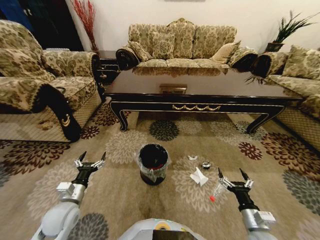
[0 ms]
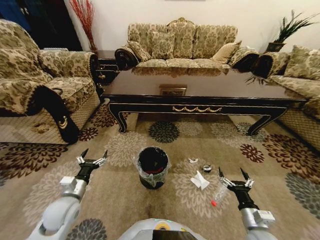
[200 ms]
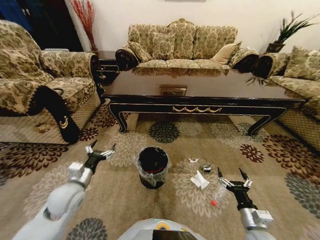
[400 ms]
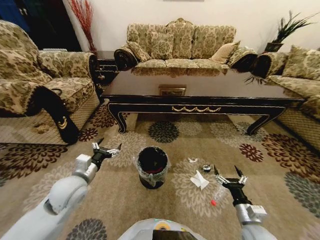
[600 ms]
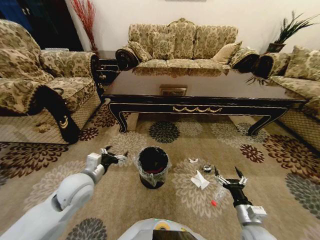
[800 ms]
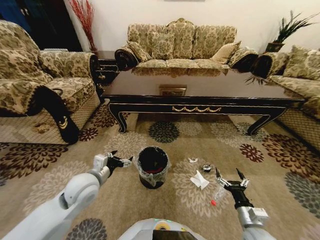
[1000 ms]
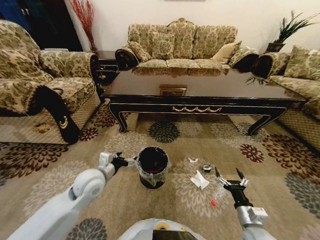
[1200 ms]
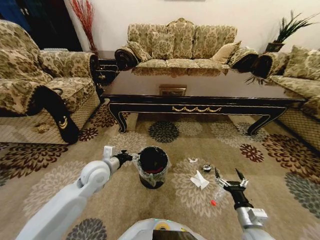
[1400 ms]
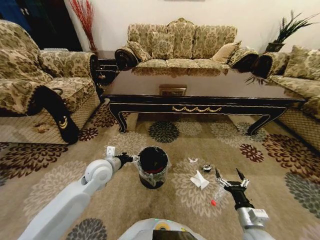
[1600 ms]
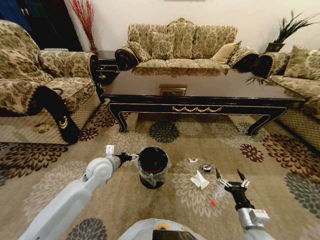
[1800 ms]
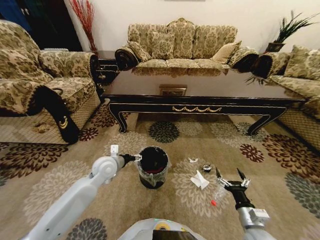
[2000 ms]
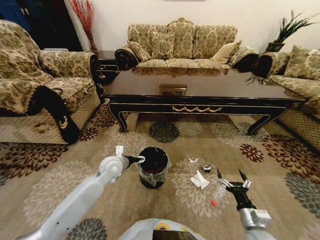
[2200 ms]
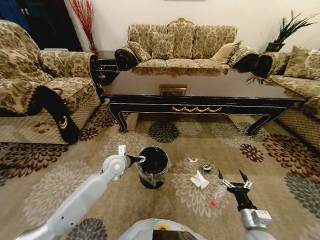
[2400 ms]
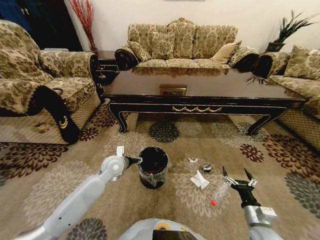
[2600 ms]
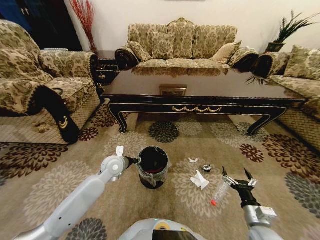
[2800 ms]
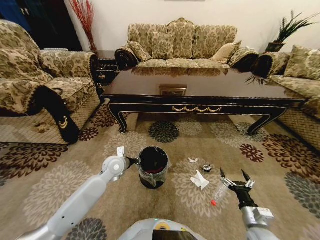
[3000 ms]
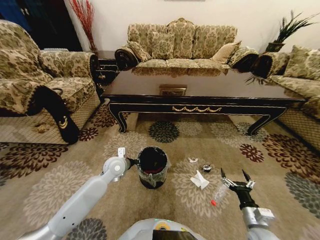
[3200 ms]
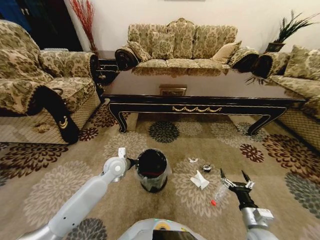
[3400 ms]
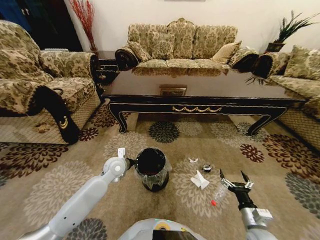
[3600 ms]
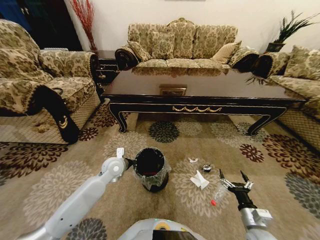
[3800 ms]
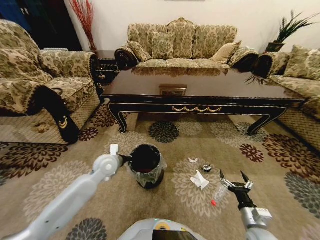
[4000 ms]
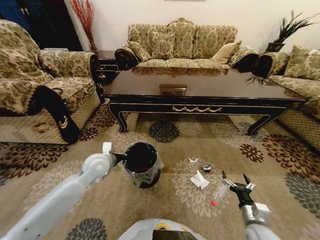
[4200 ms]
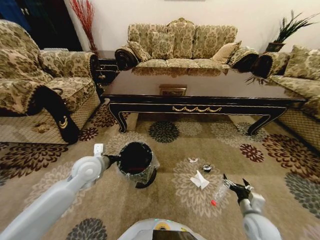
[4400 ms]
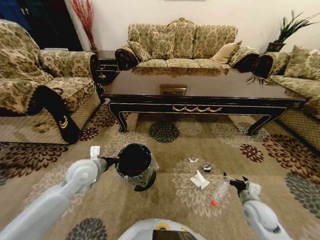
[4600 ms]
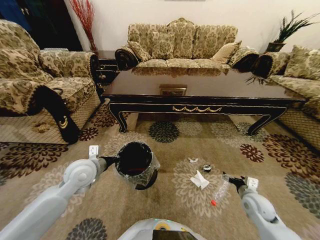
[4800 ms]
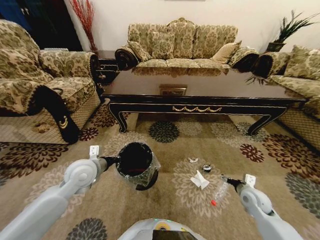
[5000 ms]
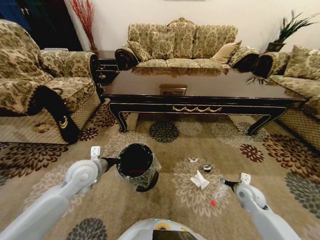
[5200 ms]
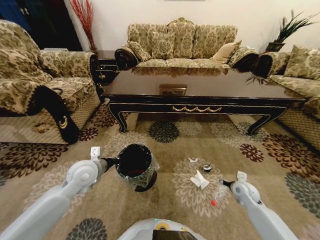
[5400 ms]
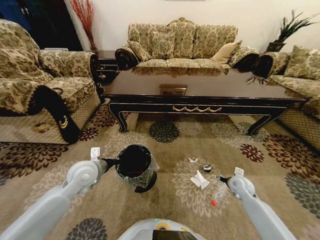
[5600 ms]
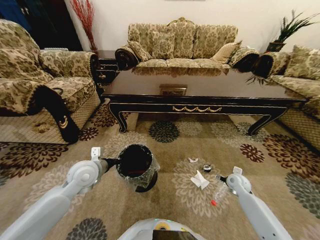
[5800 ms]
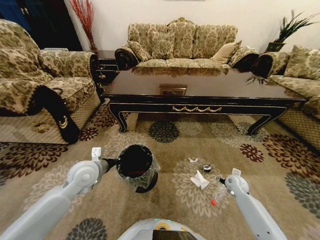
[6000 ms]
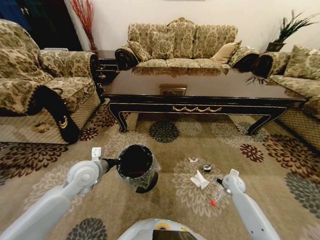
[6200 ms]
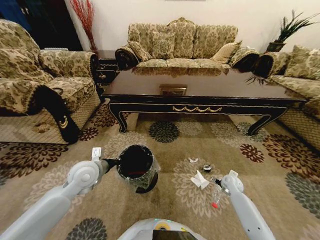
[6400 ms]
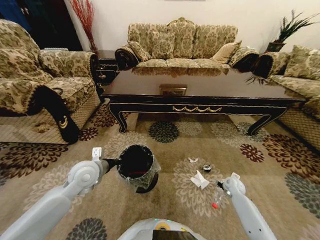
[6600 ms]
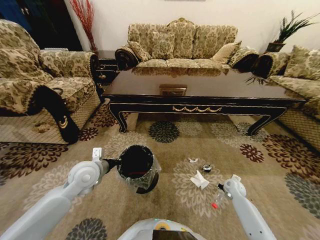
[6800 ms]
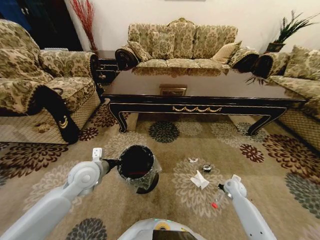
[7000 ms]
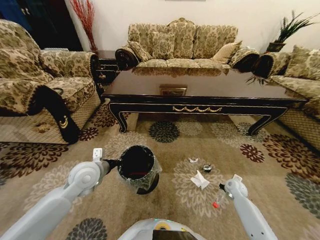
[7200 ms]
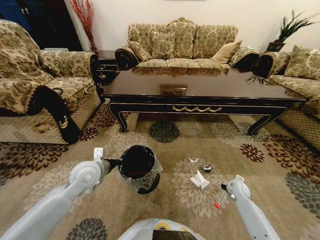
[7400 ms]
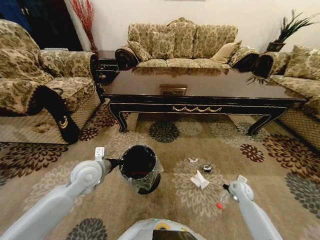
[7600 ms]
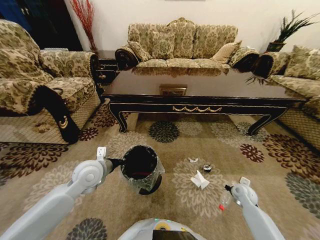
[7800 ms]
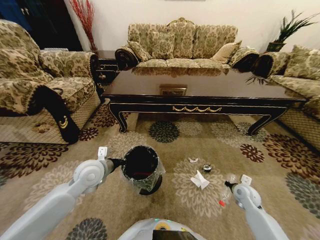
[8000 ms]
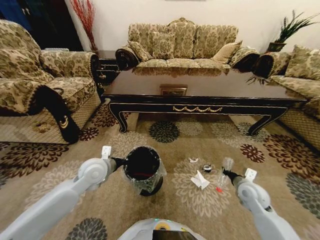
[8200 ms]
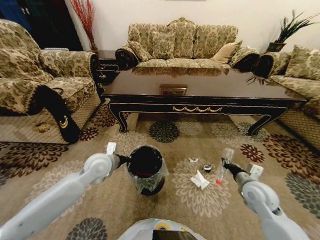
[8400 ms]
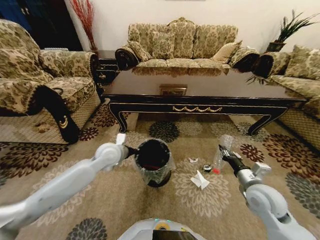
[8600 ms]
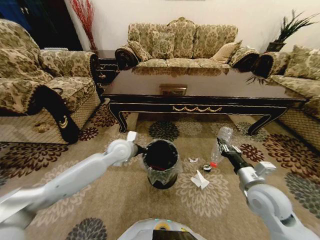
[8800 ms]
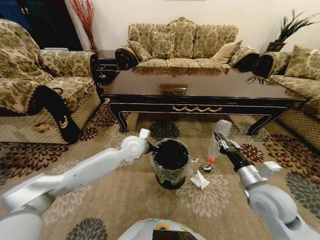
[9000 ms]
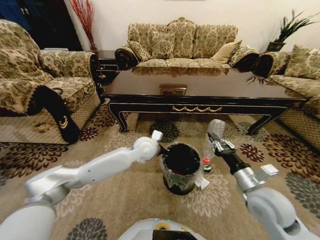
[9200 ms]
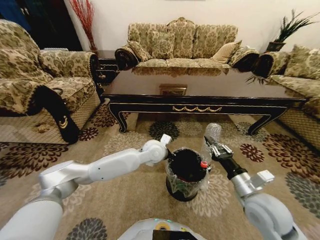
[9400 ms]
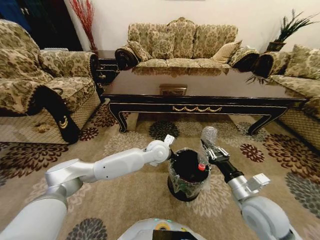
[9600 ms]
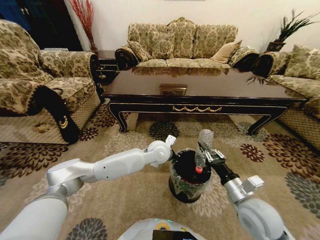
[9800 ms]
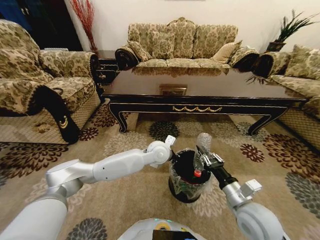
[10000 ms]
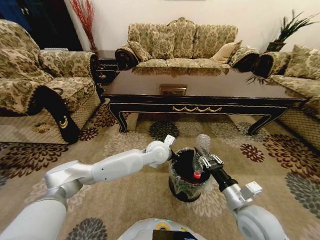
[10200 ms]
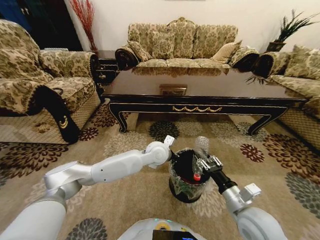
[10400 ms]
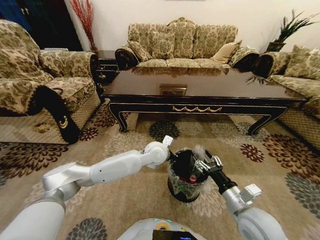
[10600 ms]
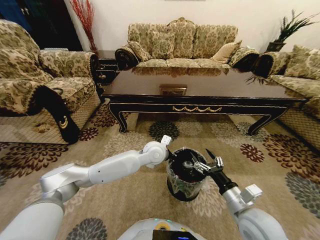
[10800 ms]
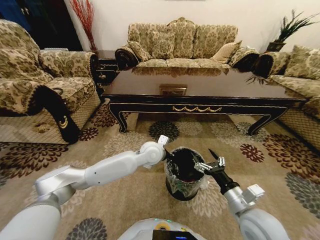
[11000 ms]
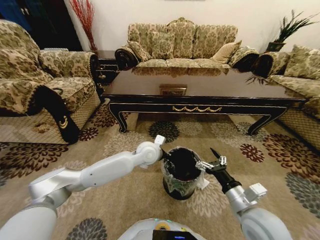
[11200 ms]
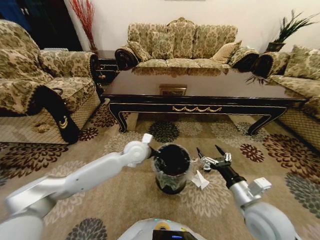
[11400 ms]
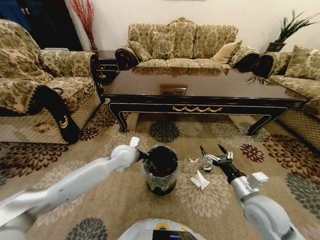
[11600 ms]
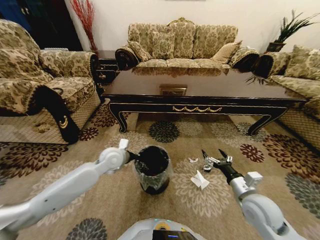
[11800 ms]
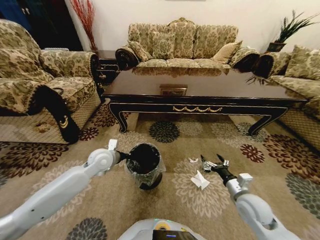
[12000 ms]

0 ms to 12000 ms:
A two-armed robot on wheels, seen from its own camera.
Task of the whole recording: Move to the front of the table and pick up the trash from the floor, then place it into the trash bin.
0 ms to 1600 ms: The left gripper shifts approximately 20 cm forward, to the right and upward.
1600 ms to 3000 ms: The left gripper goes some 5 cm forward, and closes up.
3000 ms to 4400 ms: The left gripper shifts approximately 10 cm upward, to the left and backward, and closes.
4400 ms to 6000 ms: The right gripper moves forward, roughly 20 cm.
6000 ms to 7600 ms: The right gripper closes up.
7600 ms to 9000 ms: The left gripper shifts some 20 cm to the right and forward; the right gripper moves upward, backward and to the left, about 30 cm.
9000 ms to 10400 ms: The right gripper heads backward, covering about 5 cm; the left gripper moves to the right, some 10 cm.
10400 ms to 12000 ms: The left gripper moves to the left, some 25 cm; the right gripper moves downward, to the right and forward, about 10 cm, and opens up.

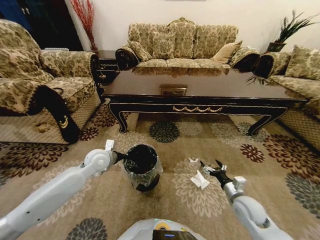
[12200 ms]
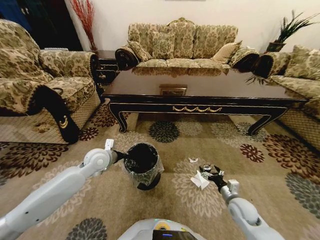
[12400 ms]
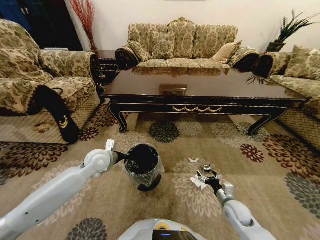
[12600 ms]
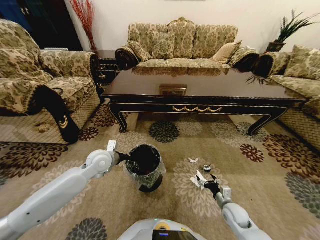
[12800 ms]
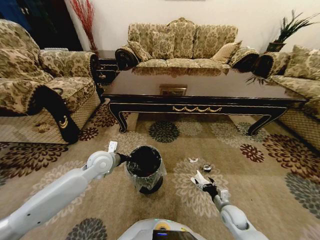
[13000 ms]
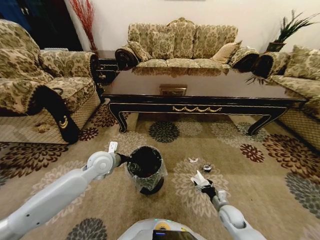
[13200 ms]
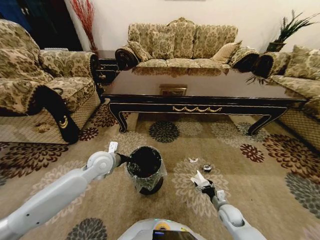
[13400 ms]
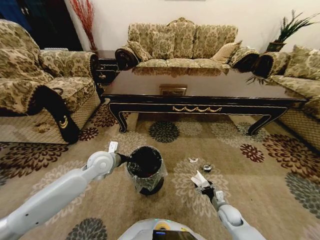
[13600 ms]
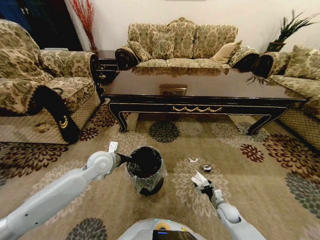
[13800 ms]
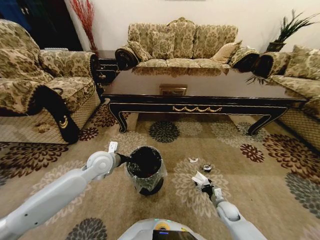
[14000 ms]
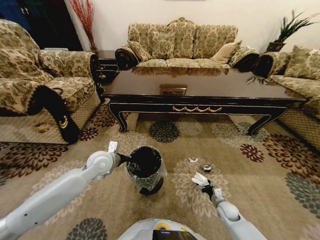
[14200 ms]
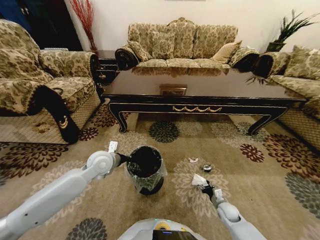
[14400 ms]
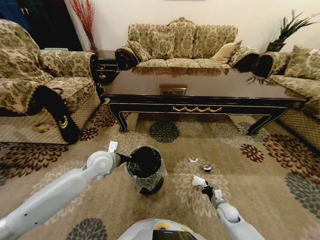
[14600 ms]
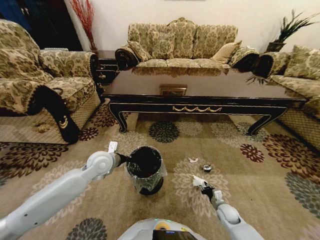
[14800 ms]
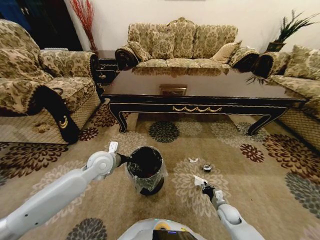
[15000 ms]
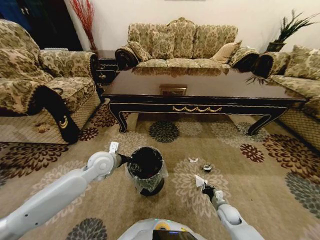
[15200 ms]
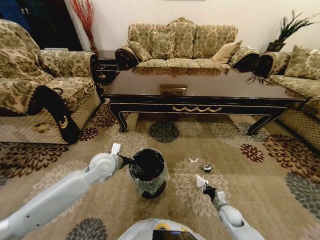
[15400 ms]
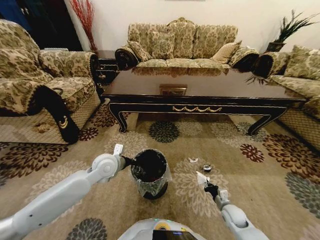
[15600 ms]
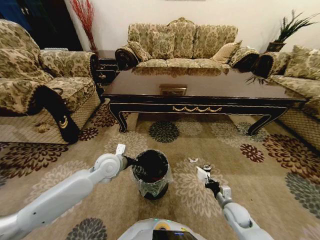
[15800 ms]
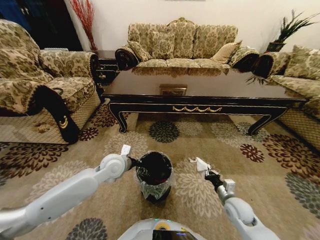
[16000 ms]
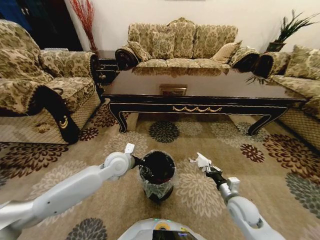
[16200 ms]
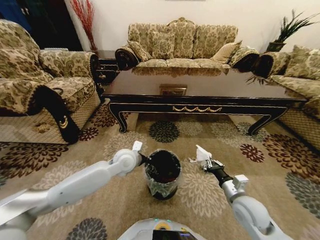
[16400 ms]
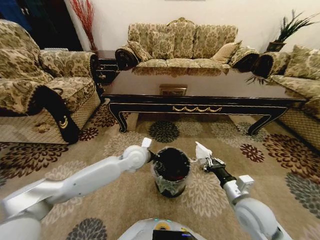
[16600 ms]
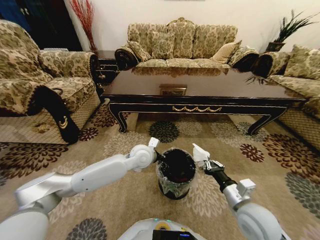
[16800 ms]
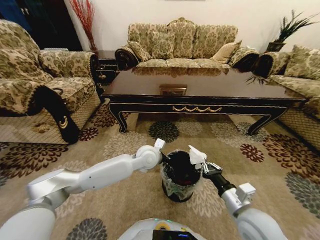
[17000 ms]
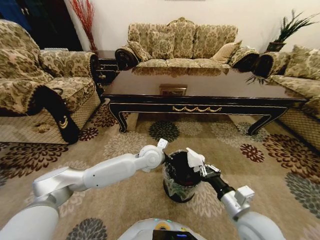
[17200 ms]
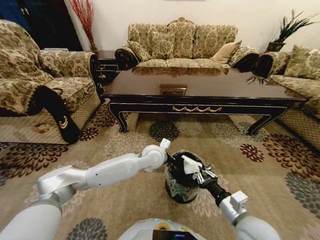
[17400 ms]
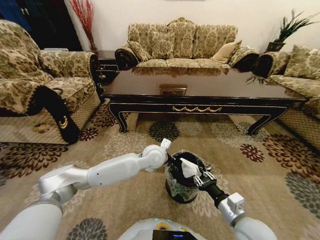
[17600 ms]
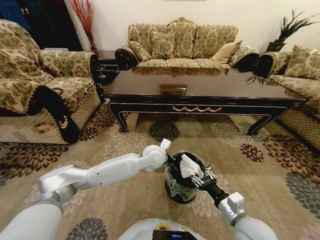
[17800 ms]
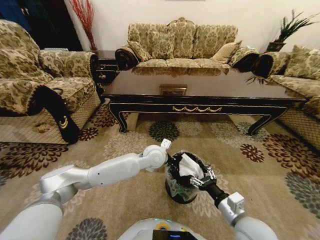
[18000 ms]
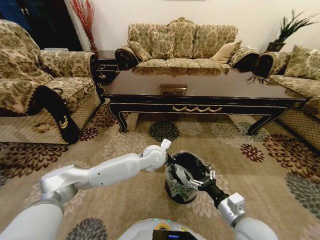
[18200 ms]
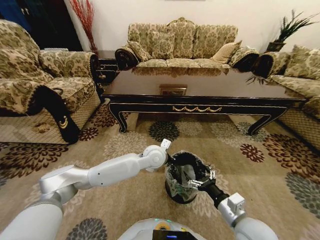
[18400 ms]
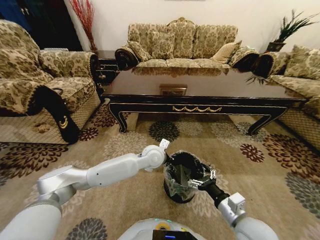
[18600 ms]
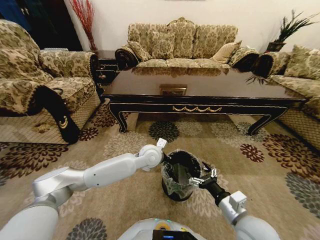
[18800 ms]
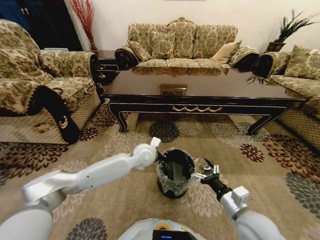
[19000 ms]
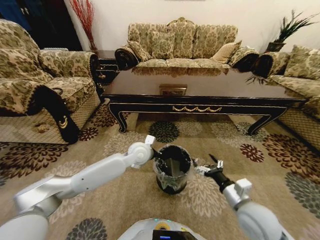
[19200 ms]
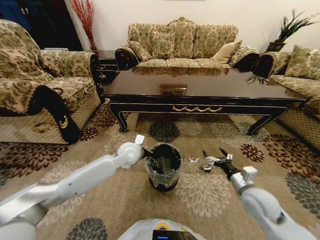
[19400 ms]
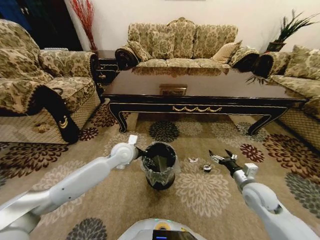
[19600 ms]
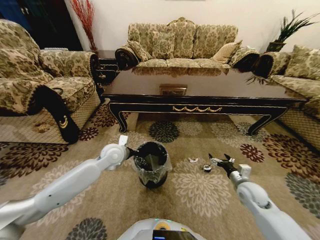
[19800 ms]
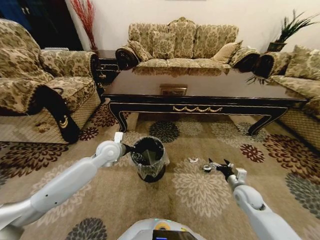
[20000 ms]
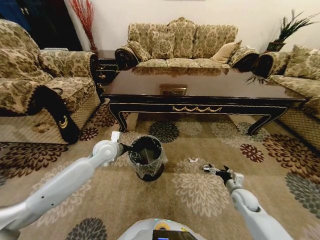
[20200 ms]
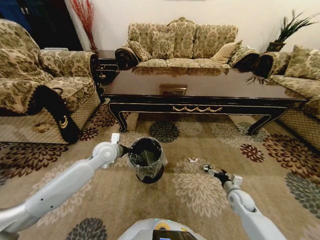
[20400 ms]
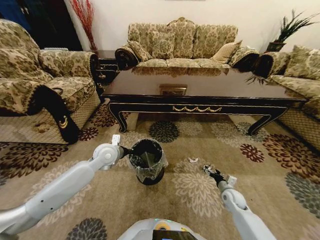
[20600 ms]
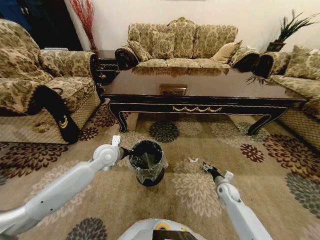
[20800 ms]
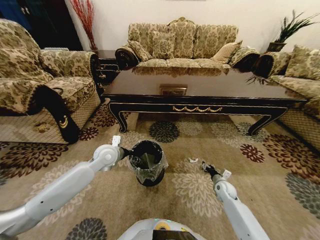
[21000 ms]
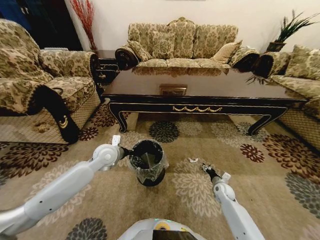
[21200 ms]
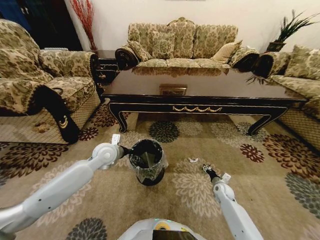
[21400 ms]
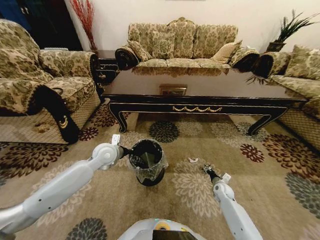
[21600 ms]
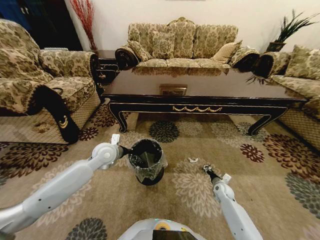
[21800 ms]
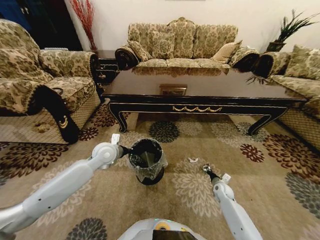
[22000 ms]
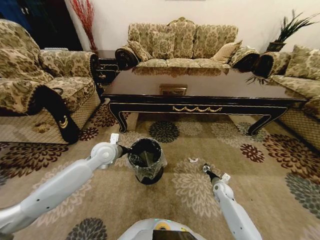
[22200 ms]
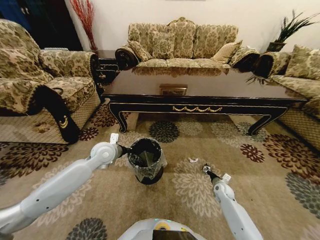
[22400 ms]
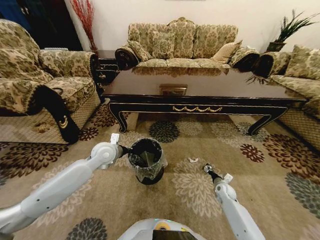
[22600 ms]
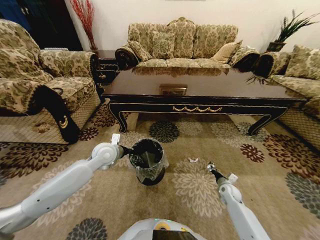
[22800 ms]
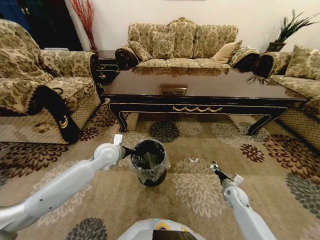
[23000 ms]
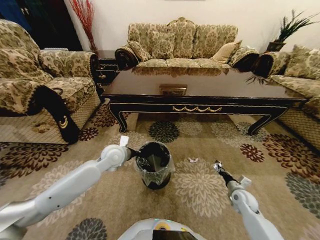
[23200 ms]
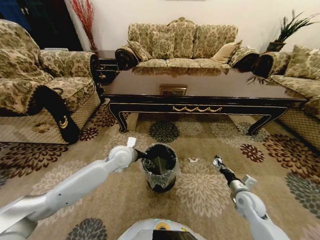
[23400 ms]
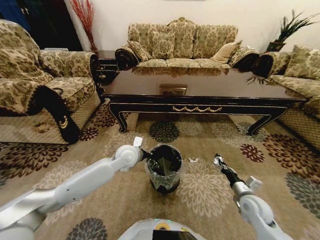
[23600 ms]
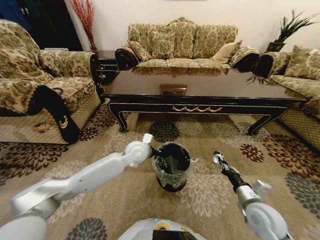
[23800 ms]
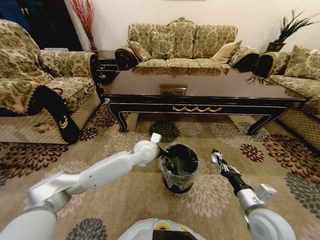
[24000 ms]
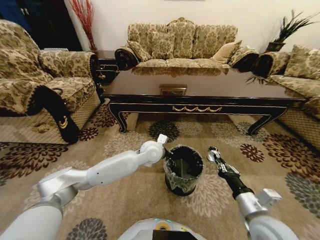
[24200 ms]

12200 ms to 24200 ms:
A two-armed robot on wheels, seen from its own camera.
Task of the whole recording: Move to the front of the table and pick up the trash from the floor, then place it into the trash bin.
12200 ms to 13800 ms: The right gripper is displaced downward by about 20 cm.
13800 ms to 15200 ms: The right gripper closes up.
15200 ms to 16600 ms: The right gripper goes about 25 cm upward; the left gripper goes some 15 cm to the right.
16600 ms to 18200 ms: The left gripper heads to the right, covering some 10 cm. Meanwhile the right gripper shifts some 5 cm backward, and opens up.
18200 ms to 19800 ms: The left gripper moves to the left, roughly 20 cm. Meanwhile the right gripper travels forward, to the right and downward by approximately 20 cm.
19800 ms to 21200 ms: The right gripper is displaced downward by some 15 cm.
21200 ms to 22600 ms: The right gripper closes up.
22600 ms to 24200 ms: The right gripper is displaced upward and backward by about 35 cm, while the left gripper is displaced to the right by roughly 20 cm.
